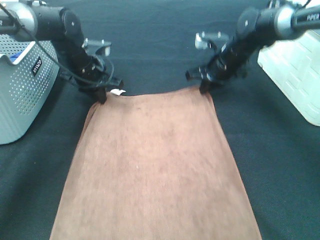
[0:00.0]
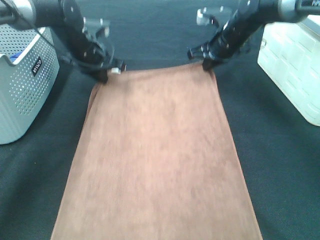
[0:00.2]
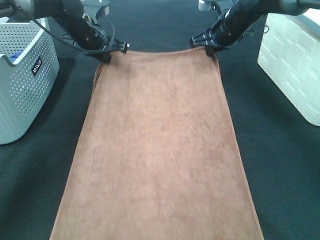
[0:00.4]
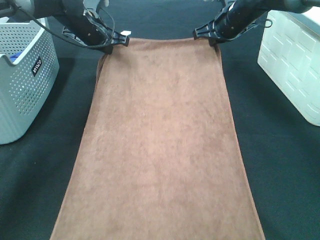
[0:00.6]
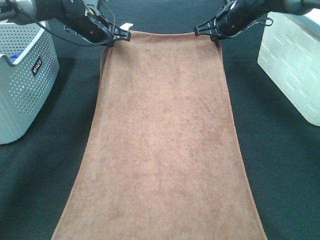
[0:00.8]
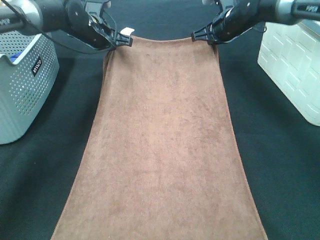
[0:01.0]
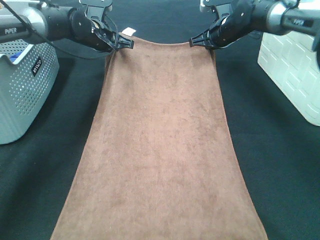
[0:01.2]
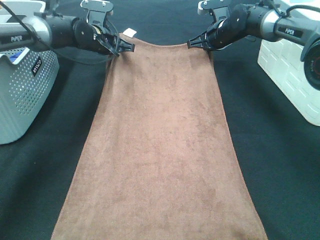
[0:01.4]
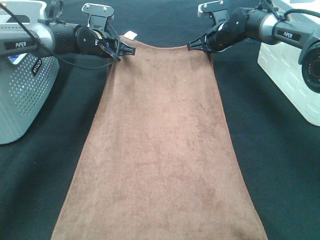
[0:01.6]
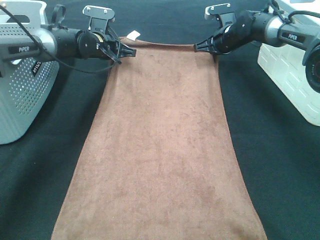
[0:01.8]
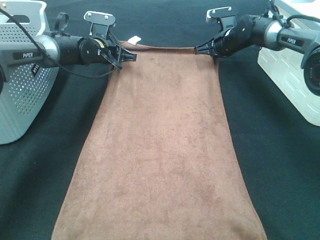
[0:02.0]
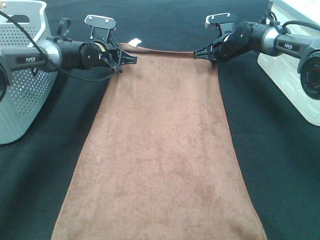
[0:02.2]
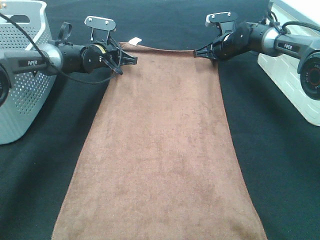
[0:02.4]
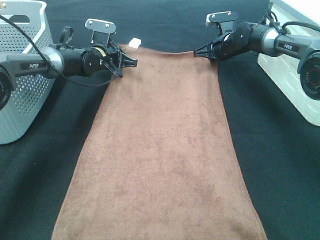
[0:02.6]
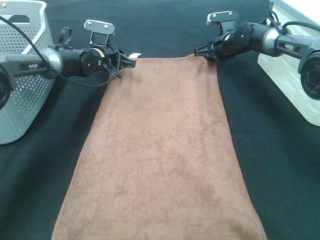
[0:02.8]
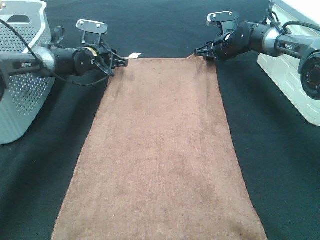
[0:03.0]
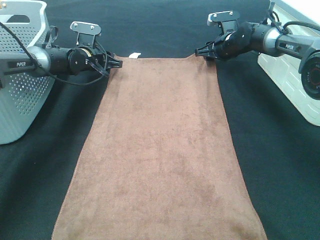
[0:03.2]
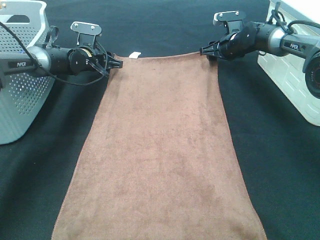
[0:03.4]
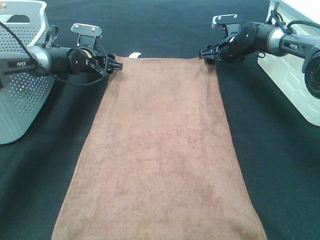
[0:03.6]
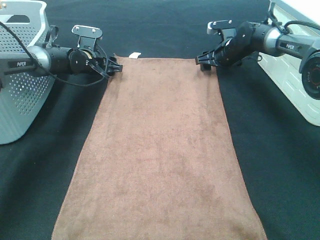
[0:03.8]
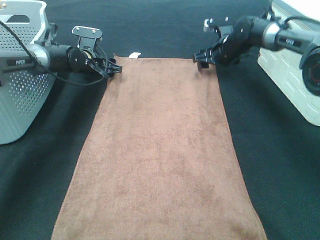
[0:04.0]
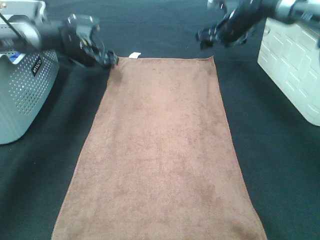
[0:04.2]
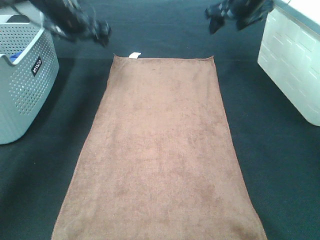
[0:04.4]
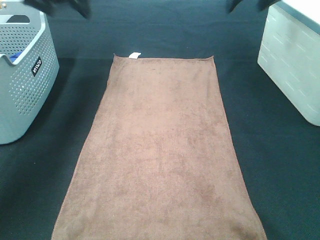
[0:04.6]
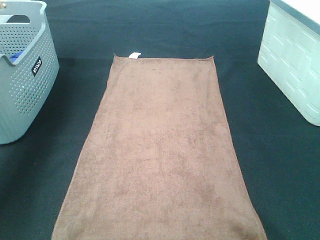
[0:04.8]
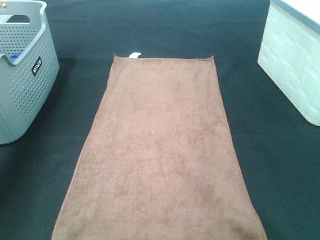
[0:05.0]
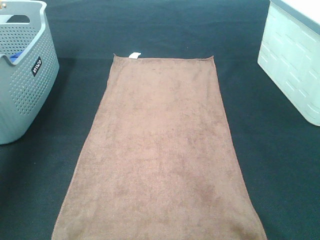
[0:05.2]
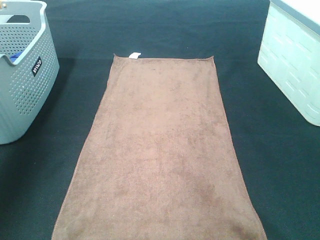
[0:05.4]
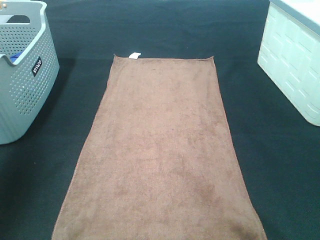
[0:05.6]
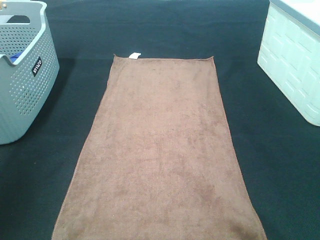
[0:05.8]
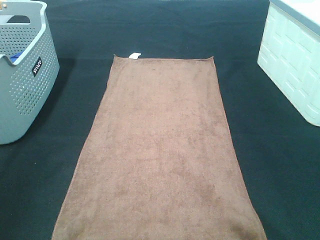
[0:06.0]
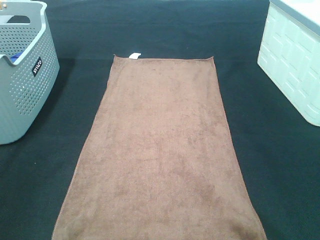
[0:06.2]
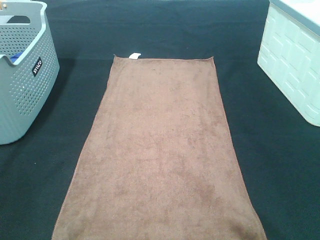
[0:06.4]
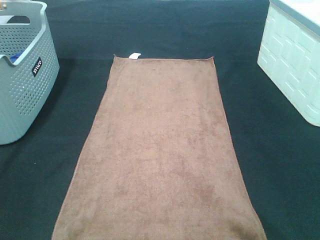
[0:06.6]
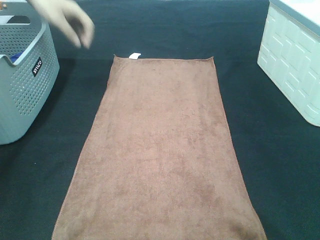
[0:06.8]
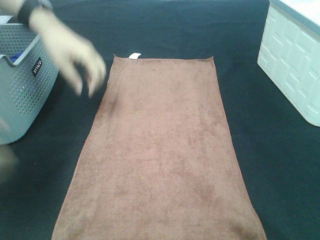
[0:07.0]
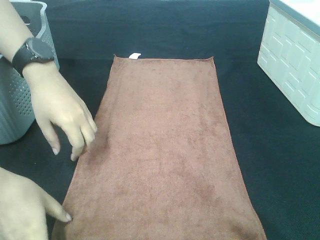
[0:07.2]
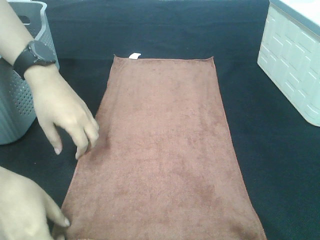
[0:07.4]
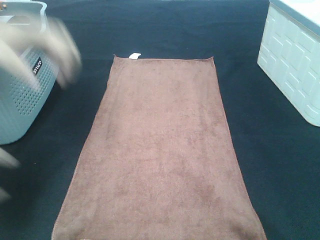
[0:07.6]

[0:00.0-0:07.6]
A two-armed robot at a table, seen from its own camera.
Task of the whole recording: Remove the towel and place it.
0:00.0 to 0:01.6: The two grippers go about 10 cm forward.
0:01.6 to 0:03.0: The left gripper changes place by approximately 5 cm, and opens; the right gripper opens up.
0:03.0 to 0:04.6: The left gripper shifts approximately 25 cm upward, and opens up; the right gripper is displaced upward and backward by about 25 cm.
0:04.6 to 0:06.0: The grippers both shift backward by approximately 40 cm.
0:06.0 to 0:07.6: The right gripper changes place by about 5 cm, while the left gripper travels backward and downward by roughly 10 cm.

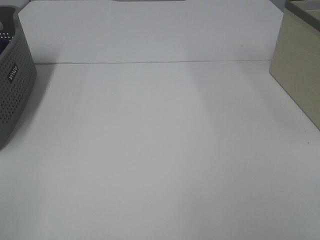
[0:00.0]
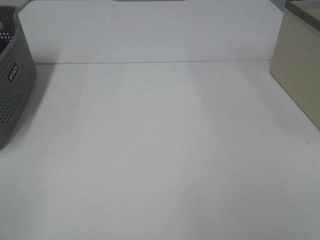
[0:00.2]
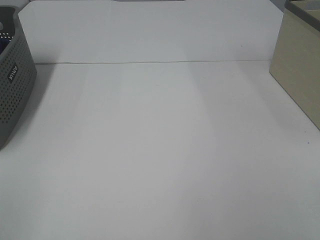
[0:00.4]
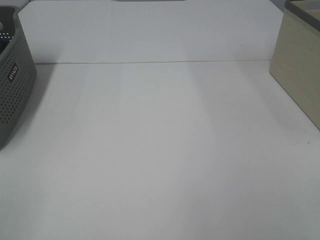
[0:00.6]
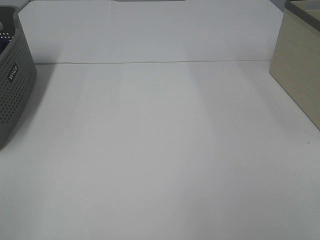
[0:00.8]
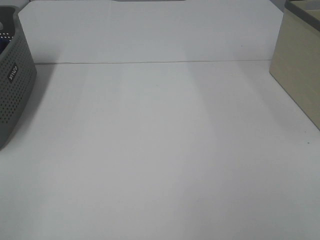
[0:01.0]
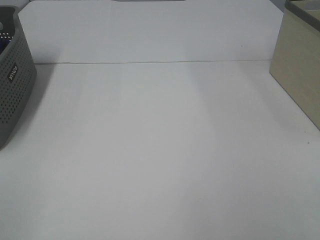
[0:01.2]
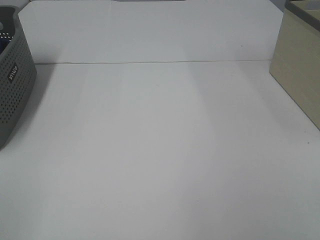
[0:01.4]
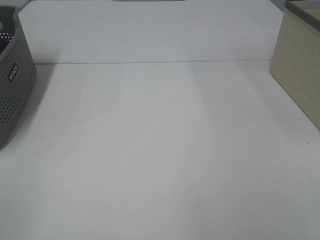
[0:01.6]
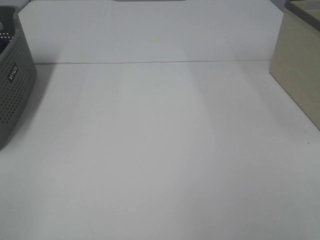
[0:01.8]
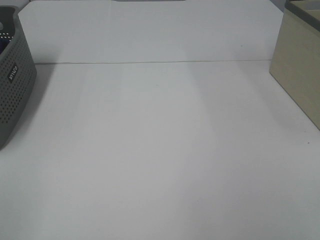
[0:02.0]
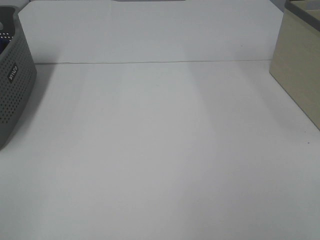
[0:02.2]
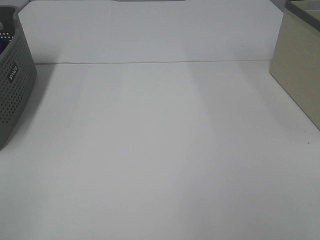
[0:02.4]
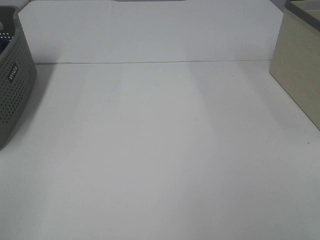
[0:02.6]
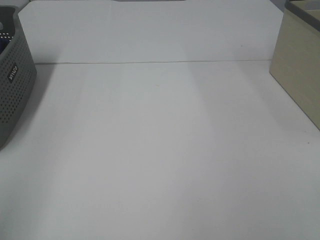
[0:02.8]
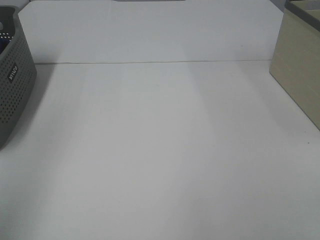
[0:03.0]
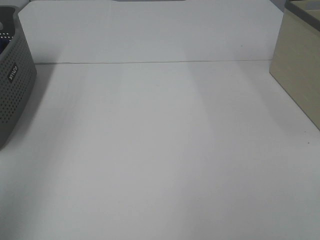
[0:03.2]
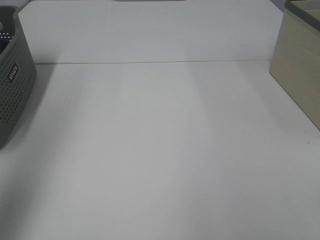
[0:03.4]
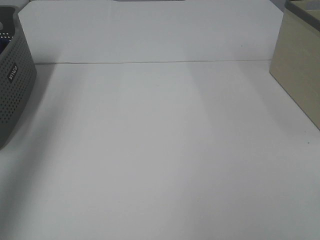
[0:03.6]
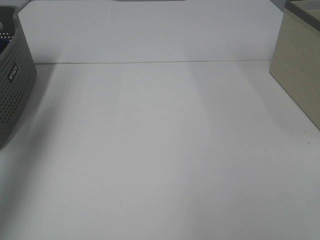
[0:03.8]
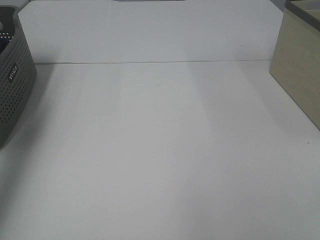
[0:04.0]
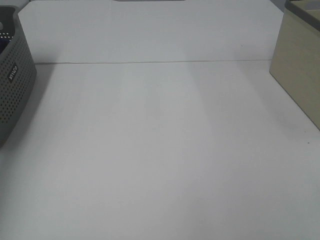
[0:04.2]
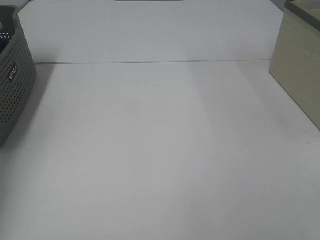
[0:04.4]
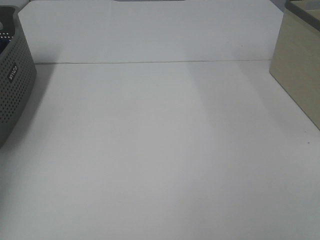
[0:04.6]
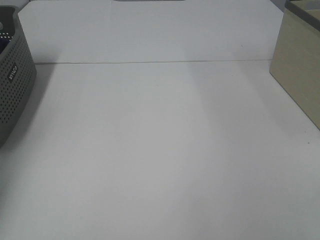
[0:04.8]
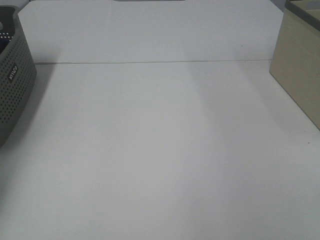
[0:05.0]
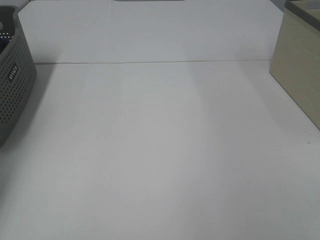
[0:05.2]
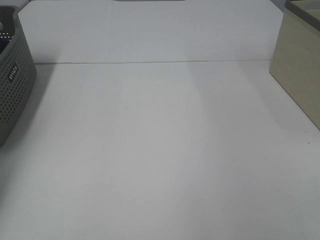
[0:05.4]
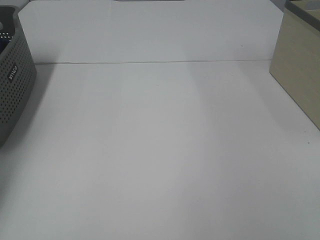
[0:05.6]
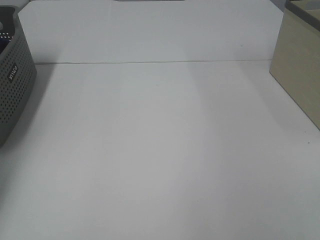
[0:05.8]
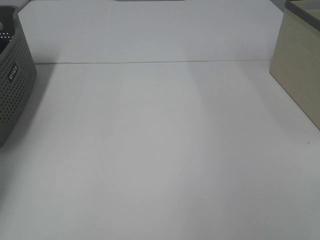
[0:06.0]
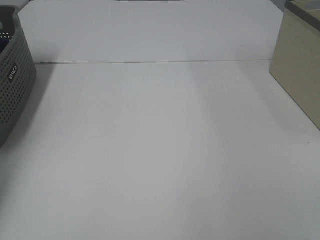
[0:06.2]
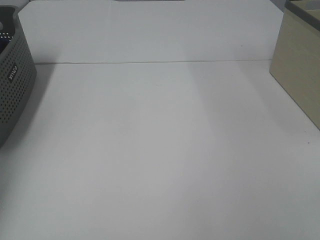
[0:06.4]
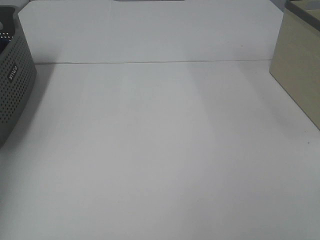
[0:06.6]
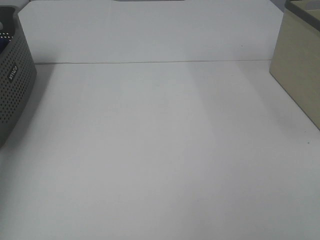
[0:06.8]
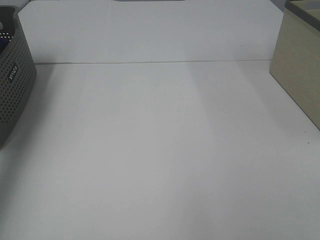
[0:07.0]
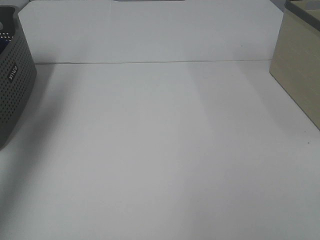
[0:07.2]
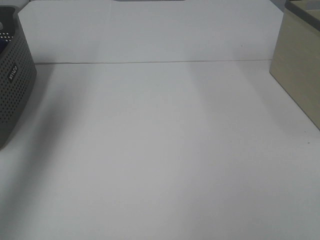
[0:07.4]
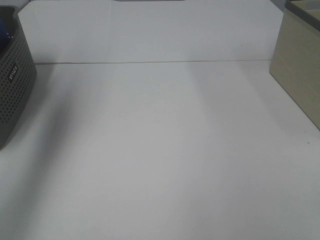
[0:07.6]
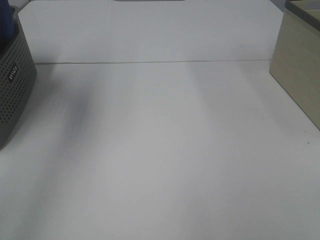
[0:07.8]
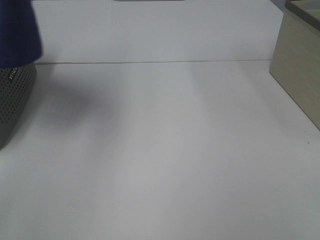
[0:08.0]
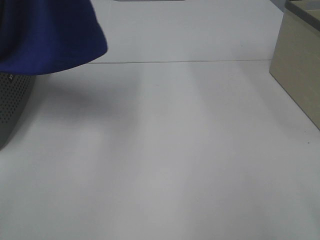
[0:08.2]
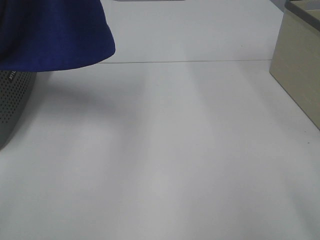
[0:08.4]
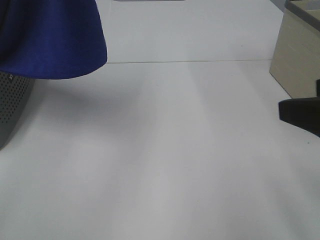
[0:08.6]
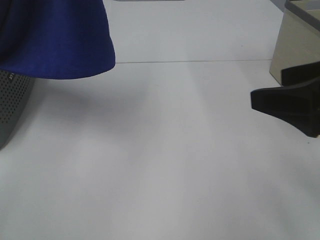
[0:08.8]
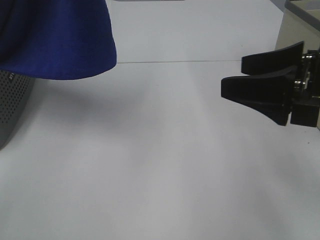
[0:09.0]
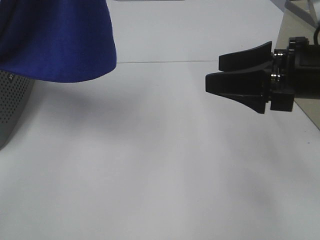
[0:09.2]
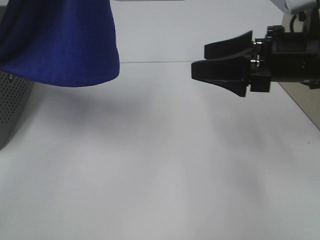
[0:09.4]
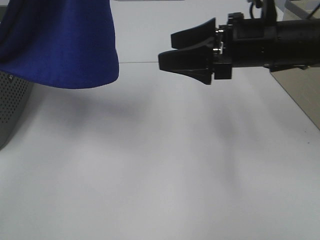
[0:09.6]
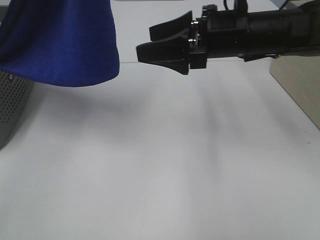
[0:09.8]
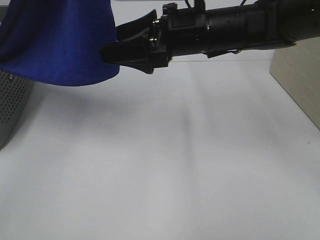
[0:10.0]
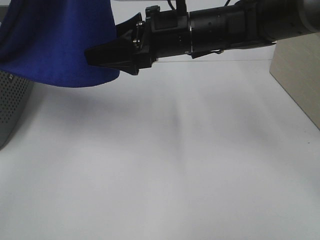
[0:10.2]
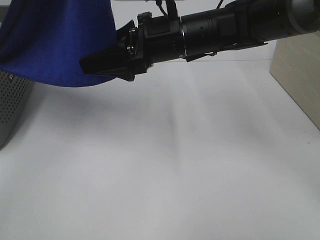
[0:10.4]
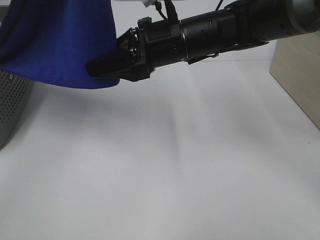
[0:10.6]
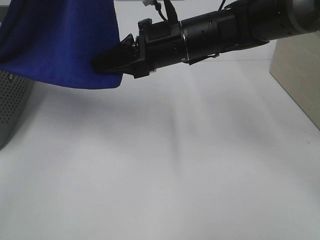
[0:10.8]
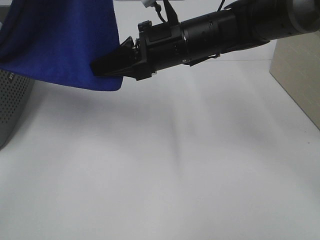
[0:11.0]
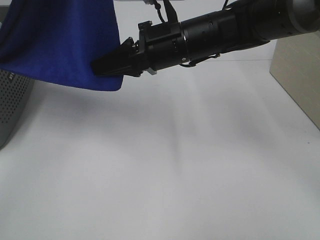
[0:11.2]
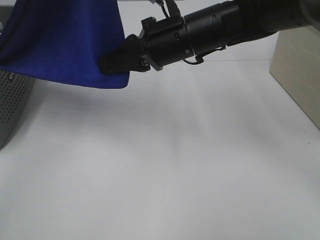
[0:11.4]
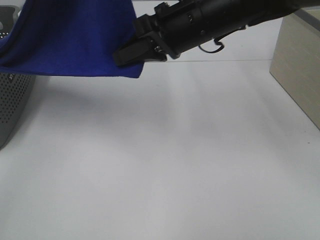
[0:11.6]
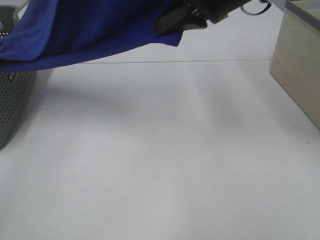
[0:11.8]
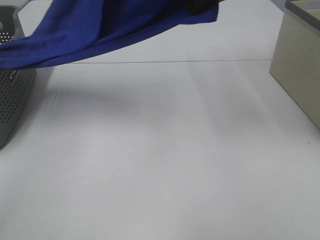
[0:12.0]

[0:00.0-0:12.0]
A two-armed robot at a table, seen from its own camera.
Task of the whole recording: Remove the towel and place it.
0:00.0 to 0:01.6: The two grippers keep their place.
0:03.0 to 0:04.4: The left gripper heads forward, covering some 30 cm.
0:06.0 to 0:07.6: The left gripper goes approximately 35 cm upward and to the right.
0:07.6 to 0:09.0: The left gripper shifts roughly 15 cm to the right. Meanwhile the right gripper heads forward, covering roughly 20 cm.
0:09.0 to 0:10.4: The right gripper heads to the left and forward, covering approximately 25 cm.
0:10.4 to 0:12.0: The right gripper heads upward and to the right, covering approximately 20 cm, and closes.

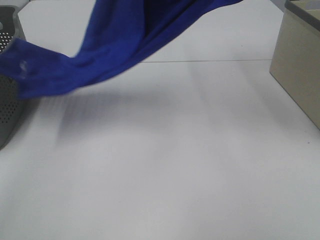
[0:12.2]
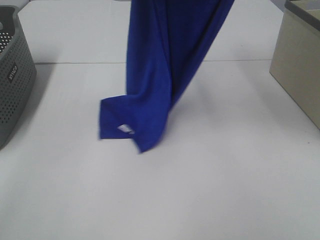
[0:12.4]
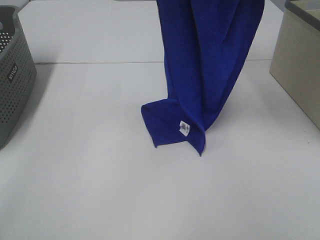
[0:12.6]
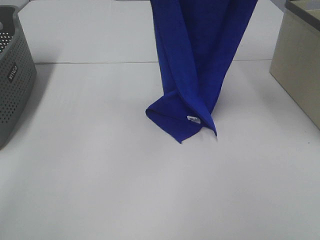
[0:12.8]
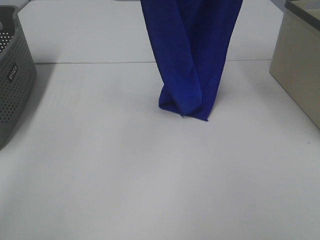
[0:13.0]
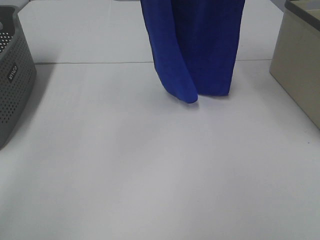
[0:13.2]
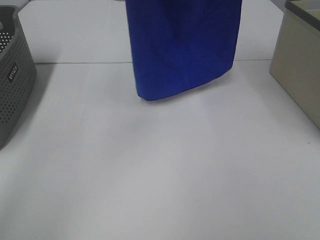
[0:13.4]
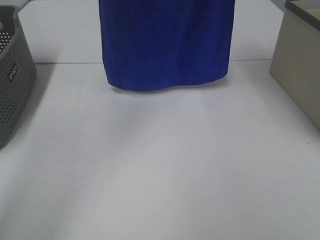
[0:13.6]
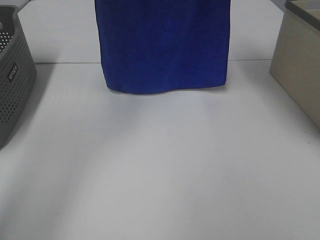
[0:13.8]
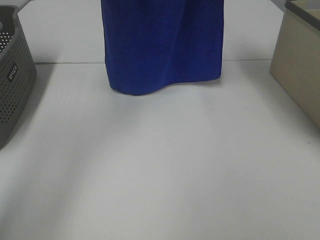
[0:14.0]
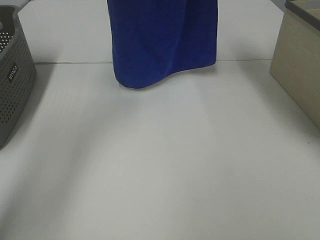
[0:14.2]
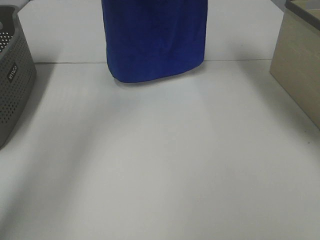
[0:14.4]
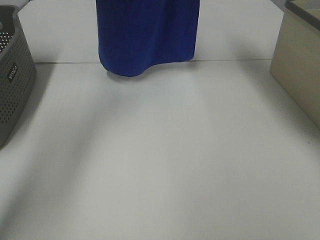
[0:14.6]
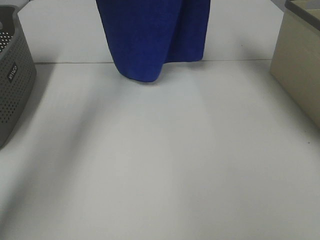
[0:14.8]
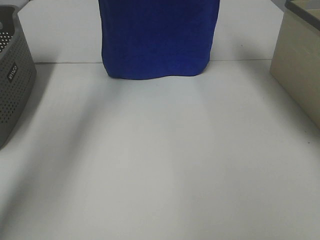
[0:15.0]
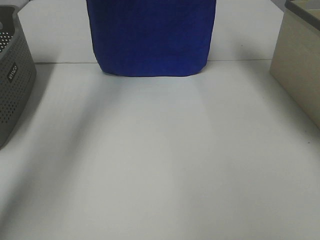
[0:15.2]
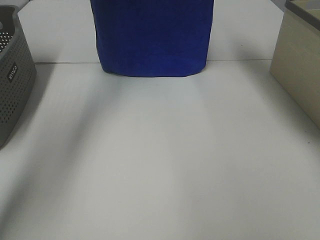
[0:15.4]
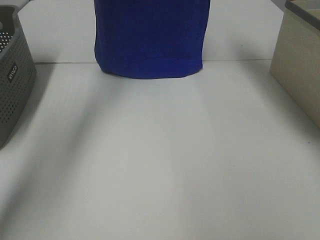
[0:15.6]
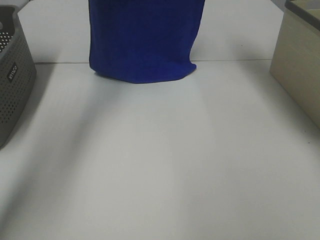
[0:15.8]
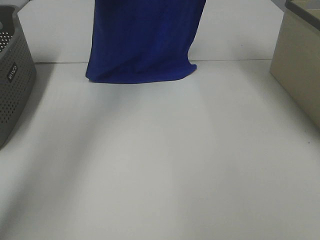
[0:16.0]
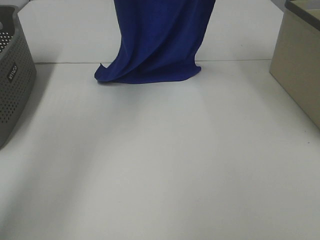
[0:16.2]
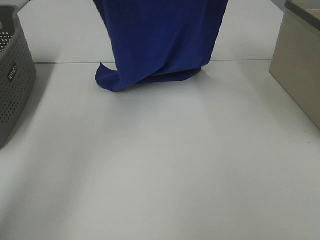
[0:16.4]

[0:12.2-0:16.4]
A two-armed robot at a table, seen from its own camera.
Task of the whole recording: Remove the towel and place it.
0:12.2 to 0:13.6: The left gripper goes approximately 10 cm forward and to the left. Meanwhile the right gripper goes approximately 10 cm upward and forward.
0:13.6 to 0:15.0: The left gripper is displaced forward by some 10 cm, while the right gripper moves forward and downward, about 10 cm.
0:15.0 to 0:16.4: Both grippers travel together backward, about 10 cm.
